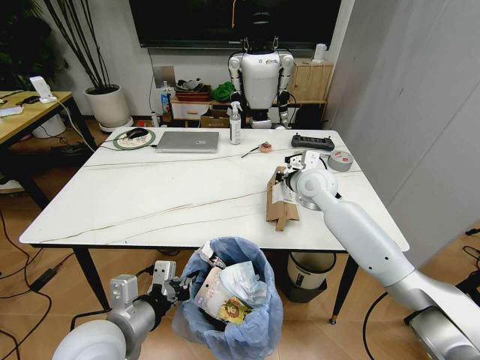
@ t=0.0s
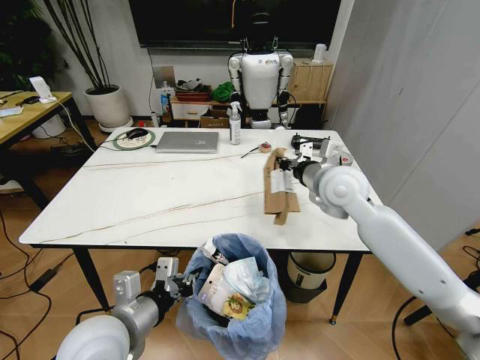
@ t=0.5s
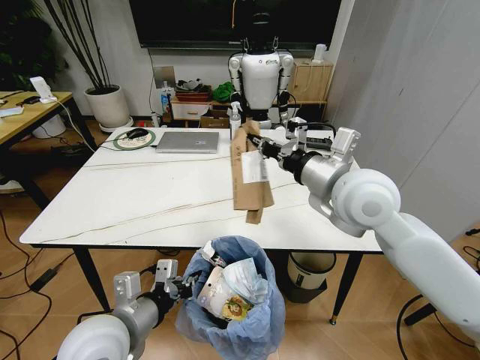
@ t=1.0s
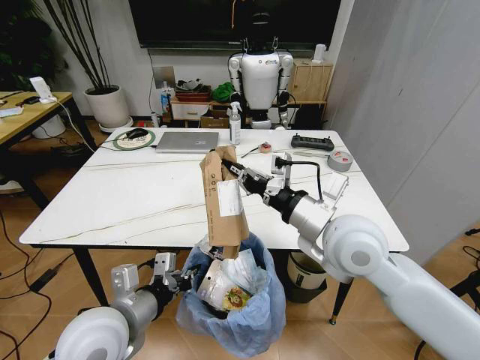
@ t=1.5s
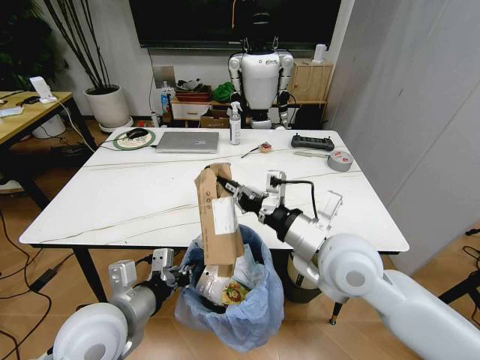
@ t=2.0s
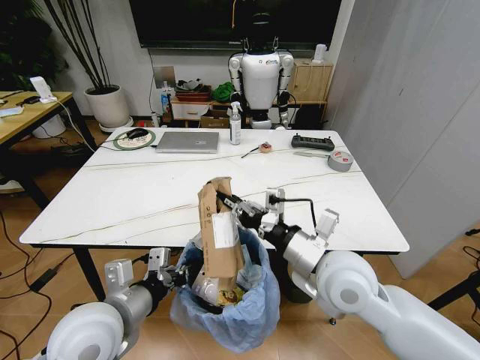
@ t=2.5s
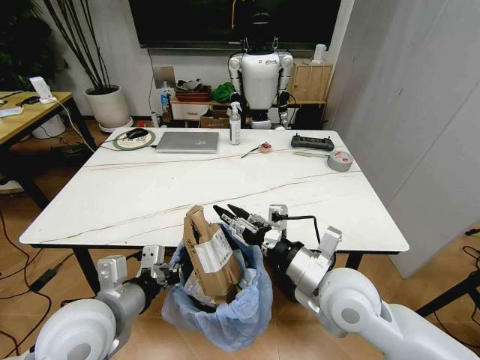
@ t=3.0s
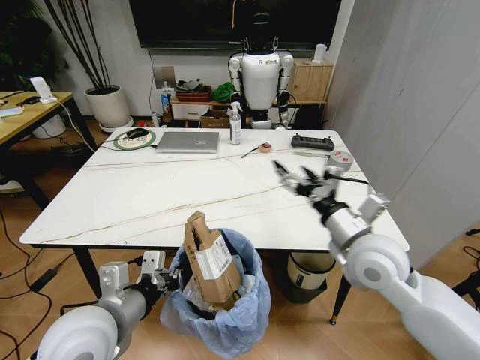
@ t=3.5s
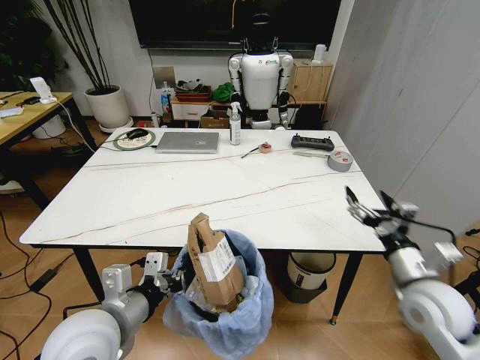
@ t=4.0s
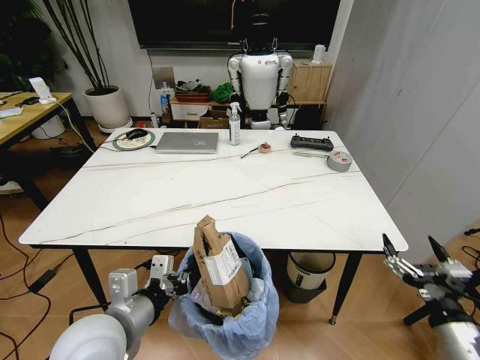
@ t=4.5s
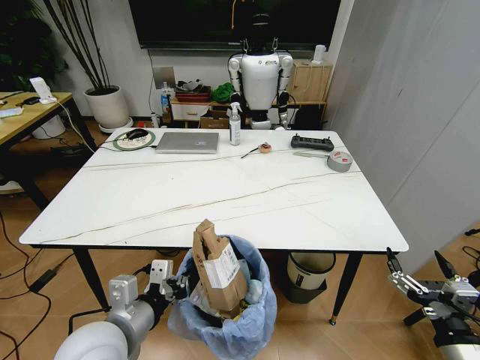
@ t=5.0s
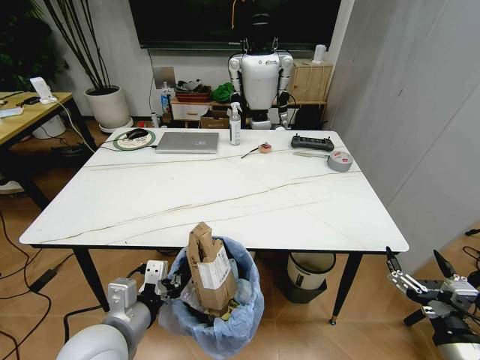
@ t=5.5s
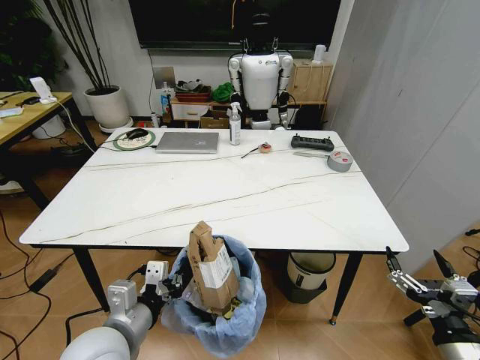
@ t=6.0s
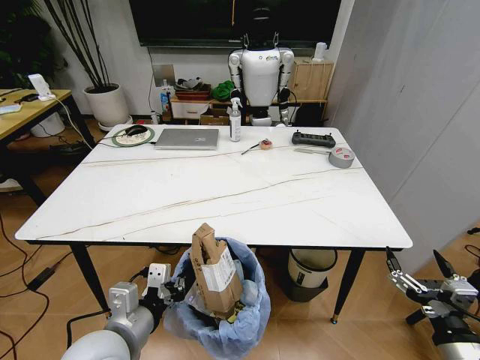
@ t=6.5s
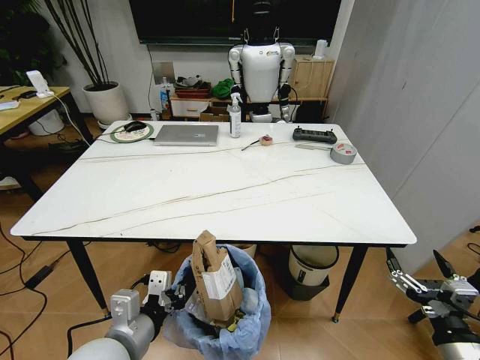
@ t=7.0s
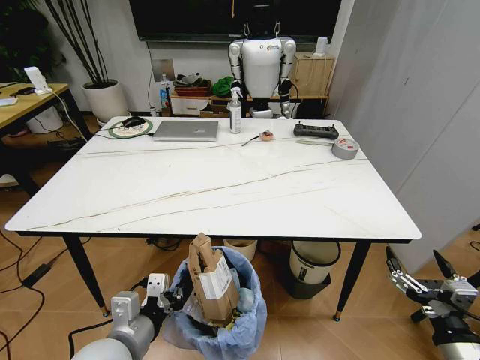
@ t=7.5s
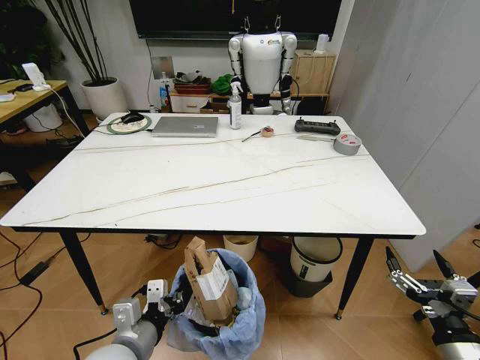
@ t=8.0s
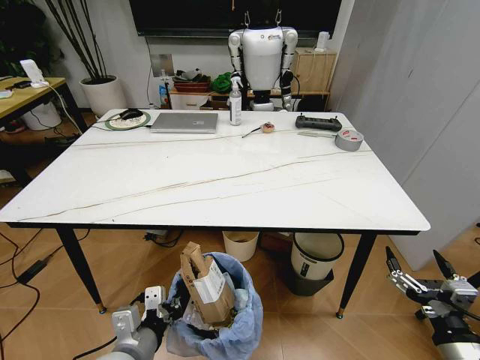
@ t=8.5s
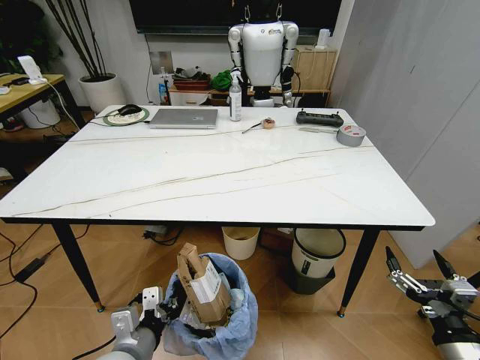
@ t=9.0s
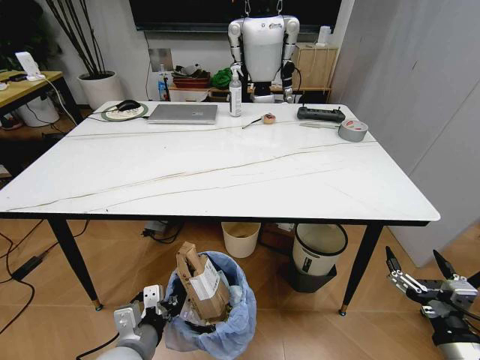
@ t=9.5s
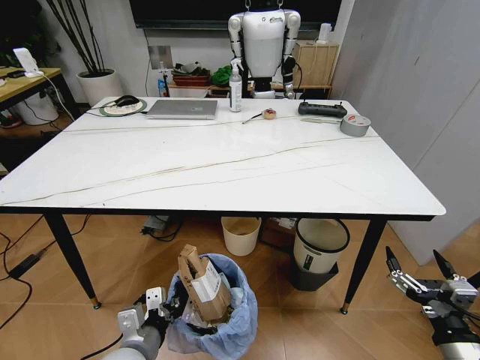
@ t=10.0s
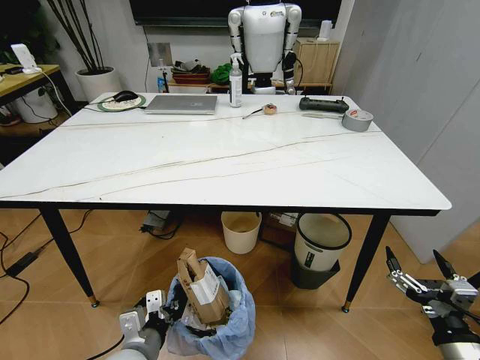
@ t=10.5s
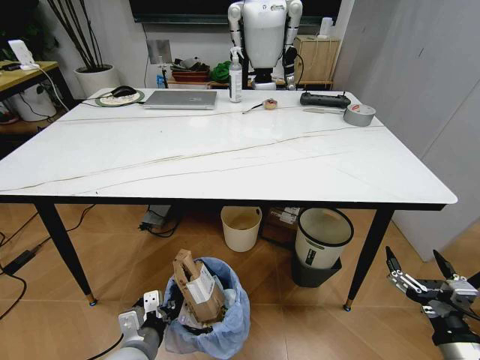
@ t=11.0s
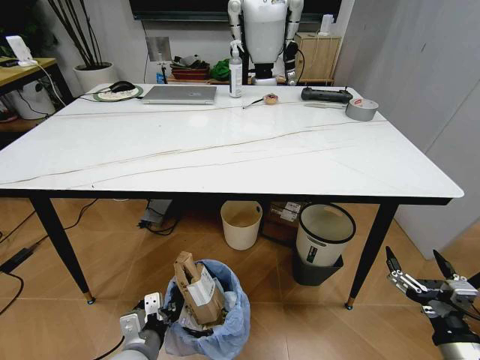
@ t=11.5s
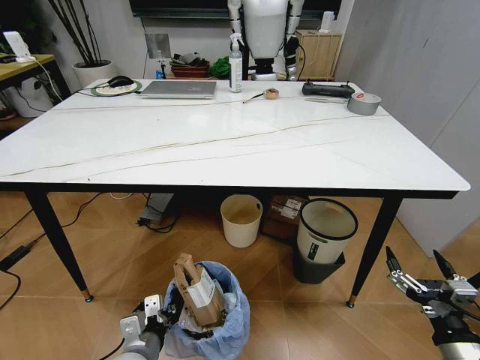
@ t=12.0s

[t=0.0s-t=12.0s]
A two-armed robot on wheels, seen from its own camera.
Task of the whole recording: Pick up the trash bin and place the trash from the table into it.
t=0.0s to t=2.0s: The right gripper moves backward, about 25 cm.
t=2.0s to t=4.0s: The right gripper goes some 20 cm to the right and downward, and opens its fingers.
t=4.0s to t=6.0s: The right gripper goes some 15 cm backward.

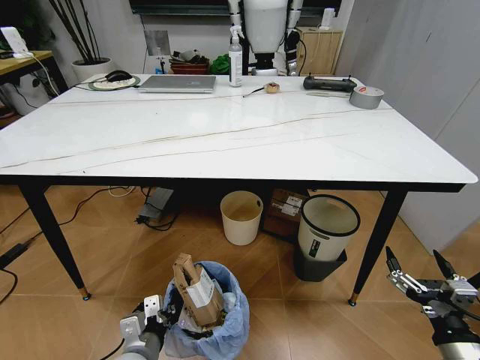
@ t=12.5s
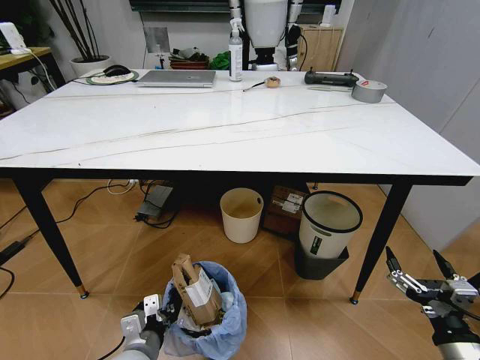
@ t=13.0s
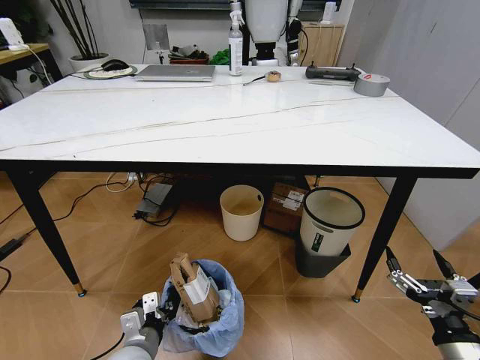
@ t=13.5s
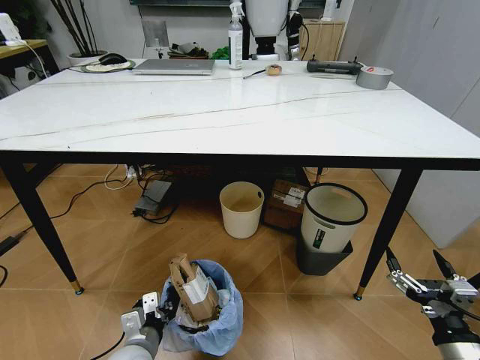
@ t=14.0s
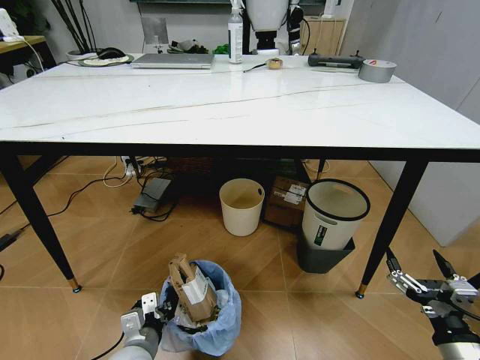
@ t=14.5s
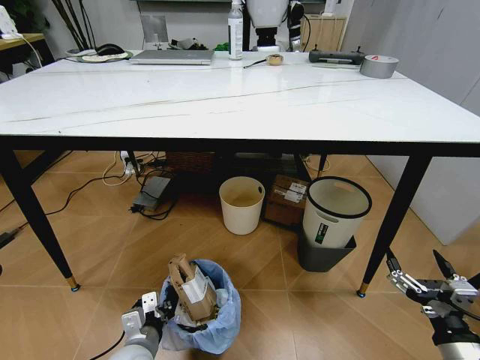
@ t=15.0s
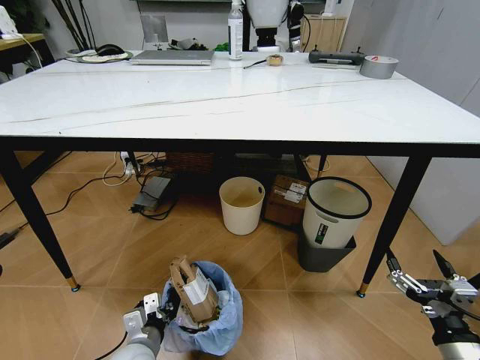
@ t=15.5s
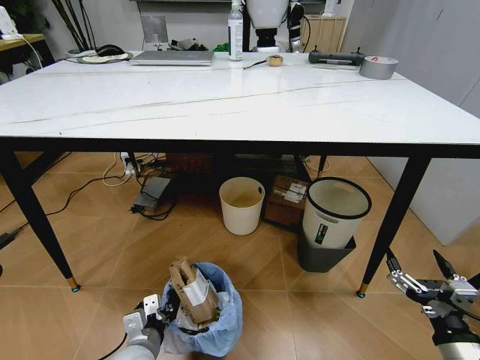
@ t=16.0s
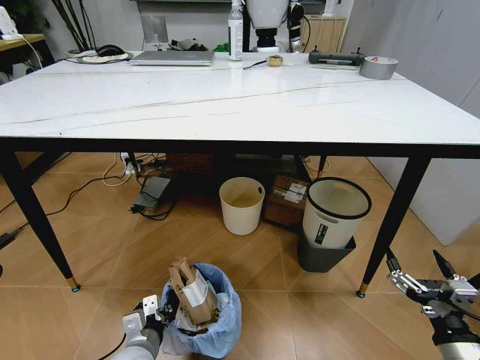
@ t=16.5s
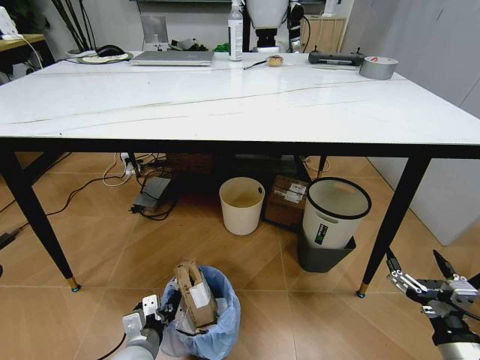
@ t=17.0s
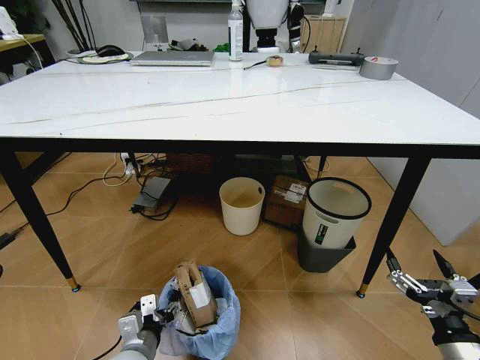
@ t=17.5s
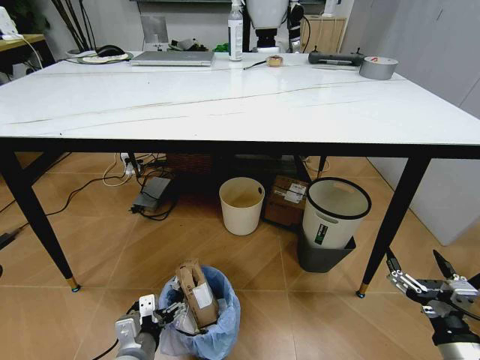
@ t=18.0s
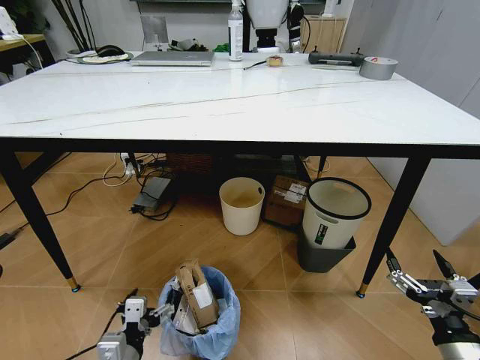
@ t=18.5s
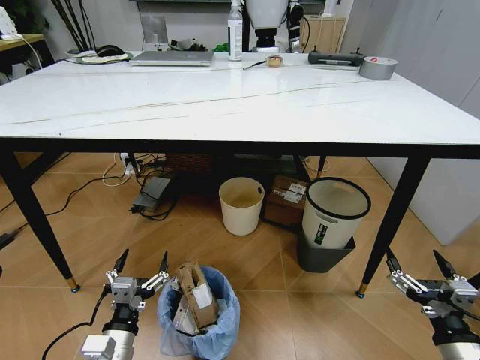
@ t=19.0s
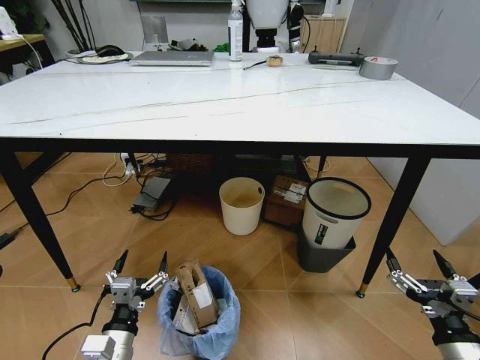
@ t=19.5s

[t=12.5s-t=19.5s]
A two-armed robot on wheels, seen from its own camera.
Task of the whole recording: Pick up the trash bin and place the trash from the table into it.
t=14.5s to t=16.0s: Both grippers stay put.
t=16.0s to t=17.5s: The left gripper opens.
t=17.5s to t=19.5s: The left gripper ends up some 5 cm from where it was.
